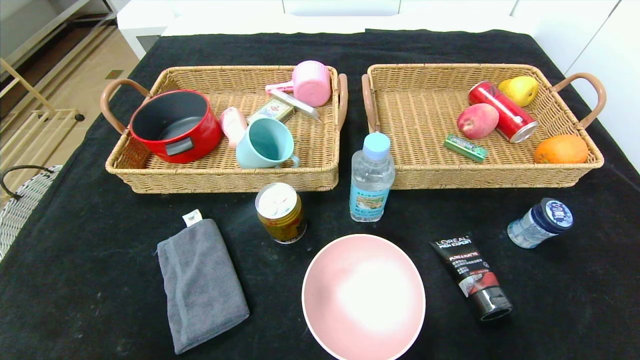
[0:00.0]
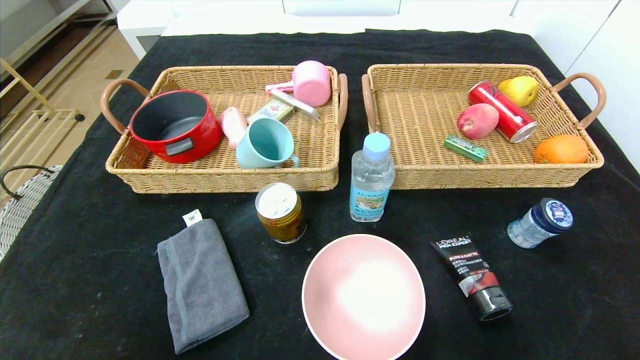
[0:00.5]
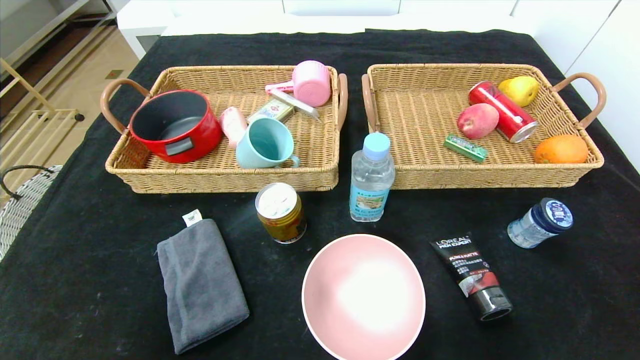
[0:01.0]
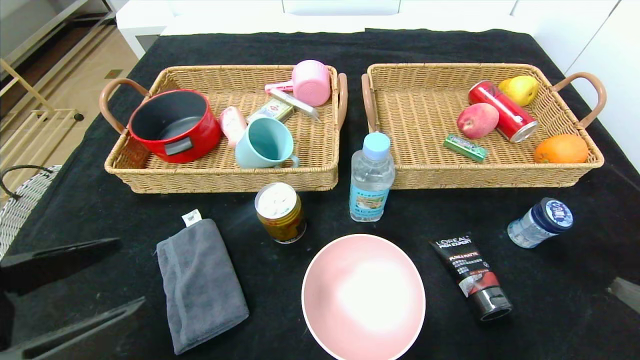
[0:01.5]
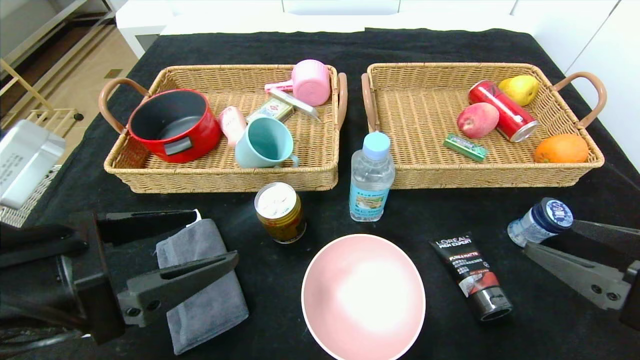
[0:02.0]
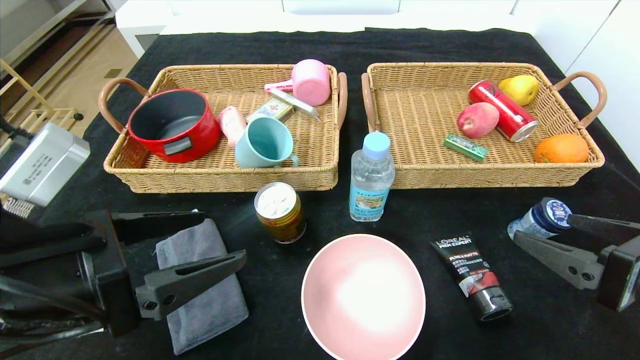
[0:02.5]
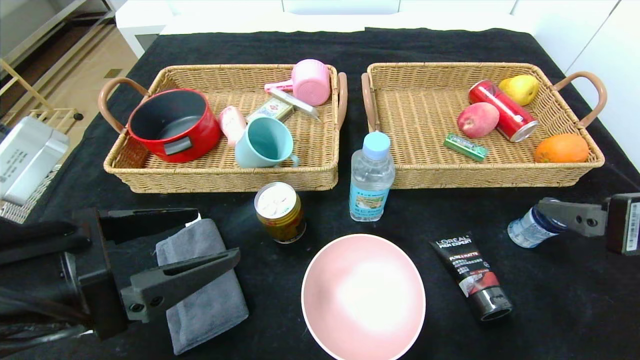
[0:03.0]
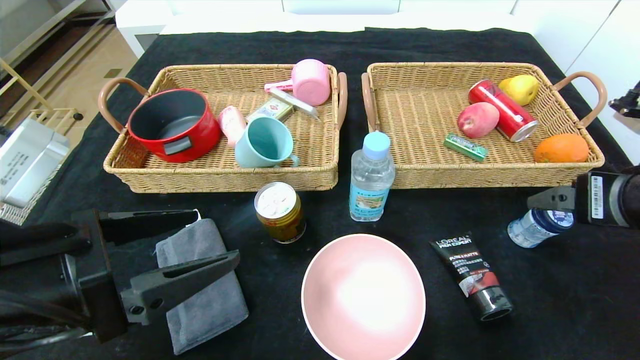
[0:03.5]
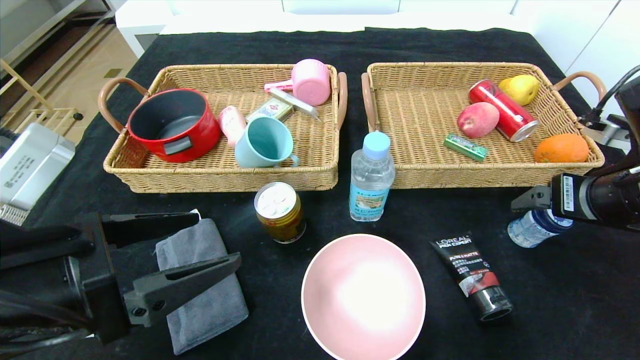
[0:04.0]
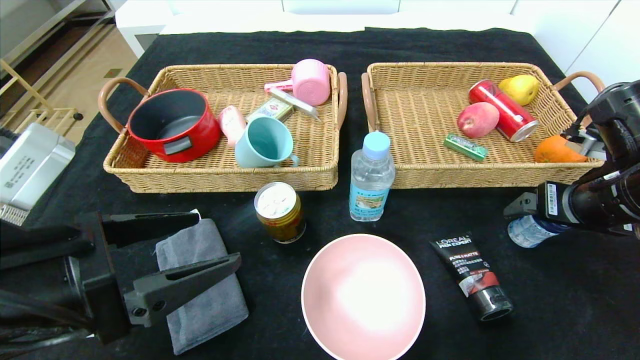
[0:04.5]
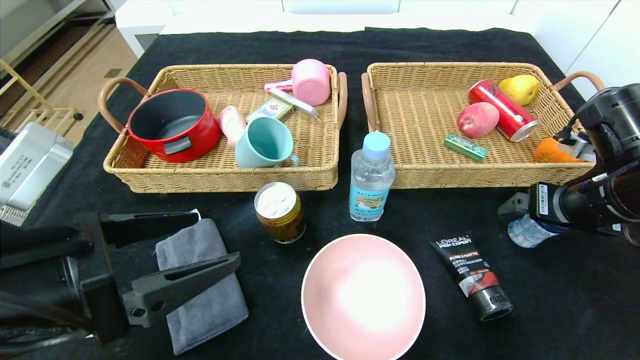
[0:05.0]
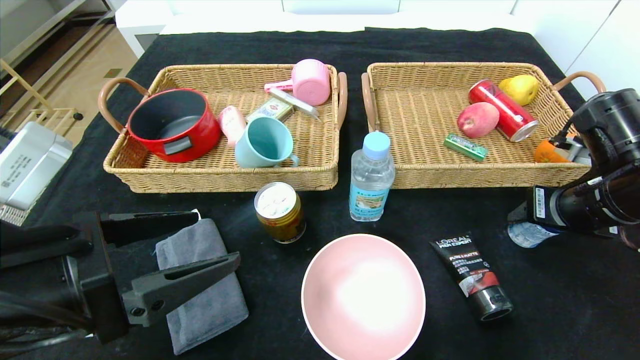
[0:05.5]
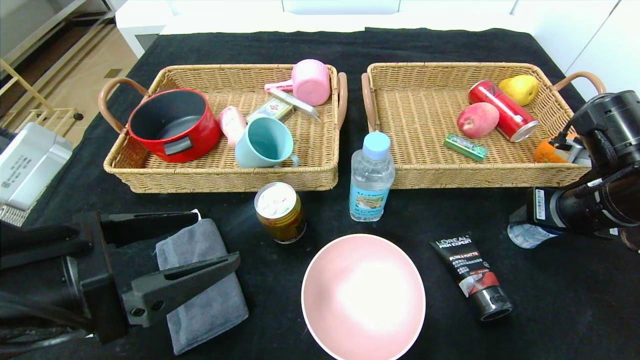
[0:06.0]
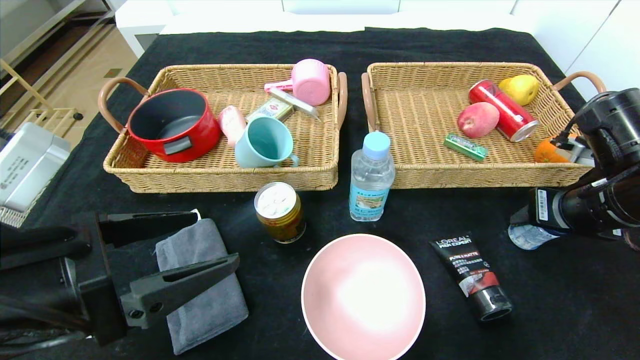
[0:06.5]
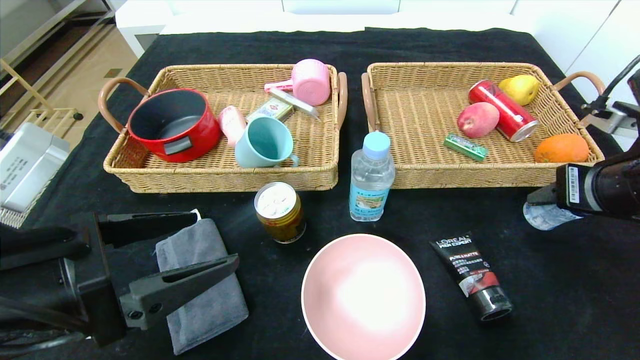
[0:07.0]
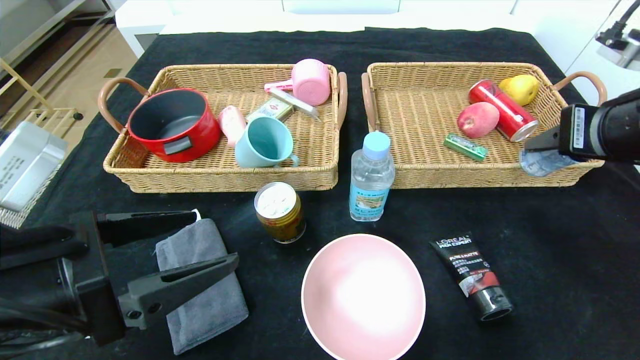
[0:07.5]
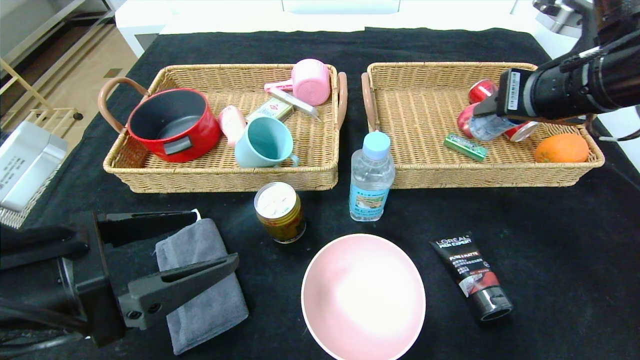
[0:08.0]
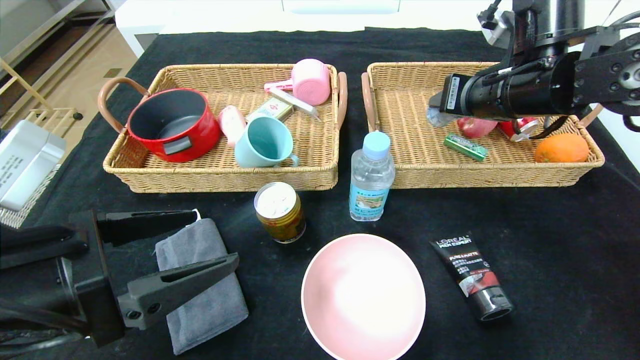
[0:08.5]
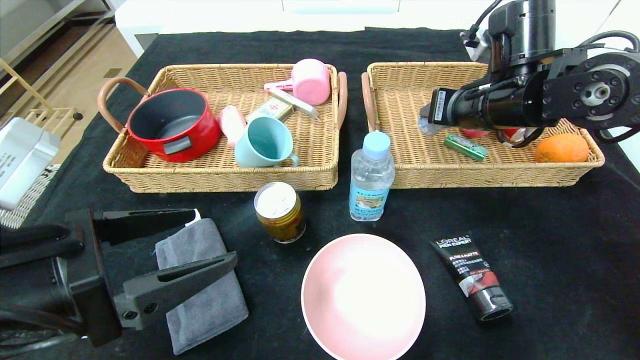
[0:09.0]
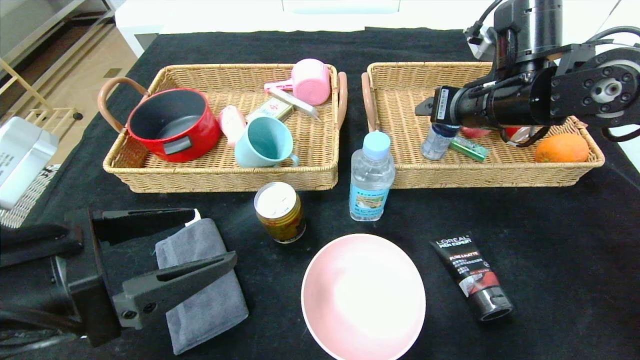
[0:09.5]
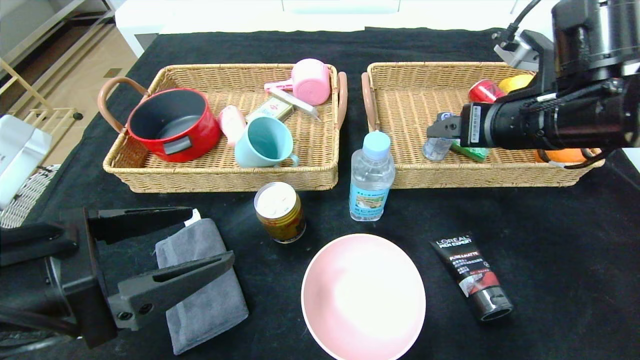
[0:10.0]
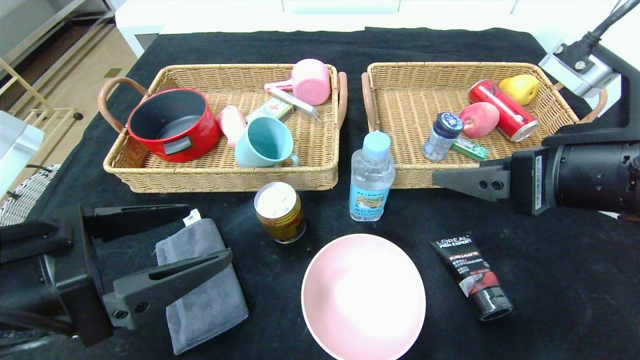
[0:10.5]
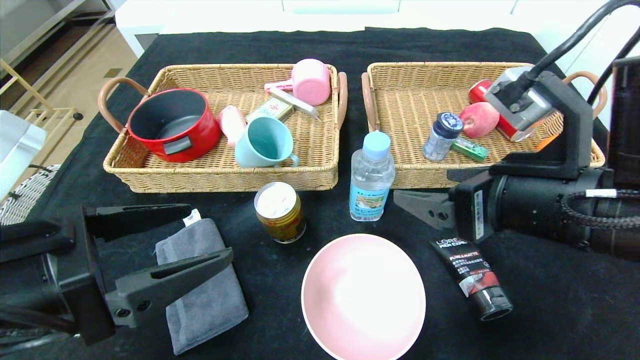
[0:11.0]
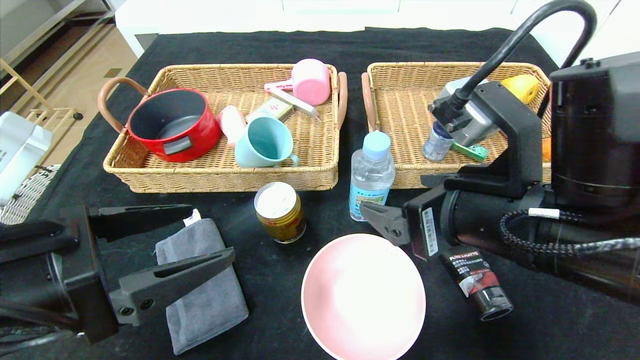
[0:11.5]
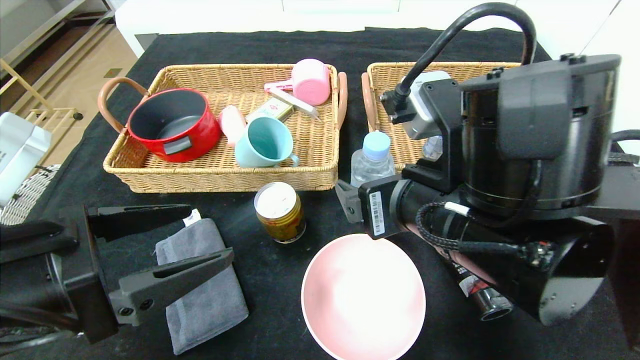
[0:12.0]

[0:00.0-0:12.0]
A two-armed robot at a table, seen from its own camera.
Step, 0:00.0 to 0:09.0: Grasp the round chewing gum and put it in the right basket.
0:00.0 to 0:02.0: The right gripper heads upward, forward and to the left, covering about 20 cm, while the left gripper heads upward, forward and to the right, covering about 25 cm.
0:02.0 to 0:04.0: The right gripper shifts approximately 10 cm forward.
0:04.0 to 0:06.0: The right gripper closes.
0:06.0 to 0:08.0: The right gripper heads upward and to the left, covering roughly 15 cm.
0:08.0 to 0:10.0: The right gripper moves some 10 cm forward and comes back, and opens its fingers.
0:10.0 to 0:12.0: The right gripper travels to the left and backward by approximately 15 cm.

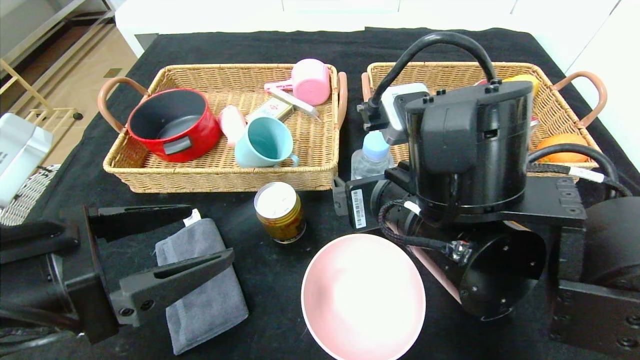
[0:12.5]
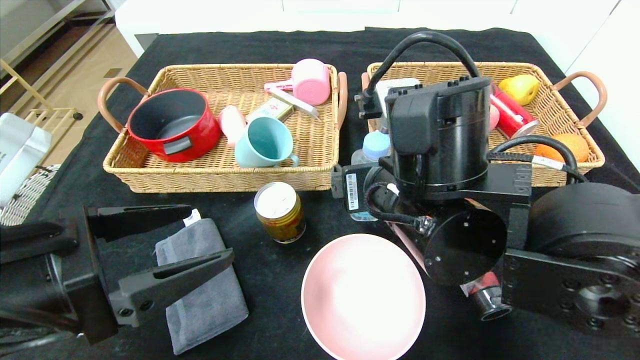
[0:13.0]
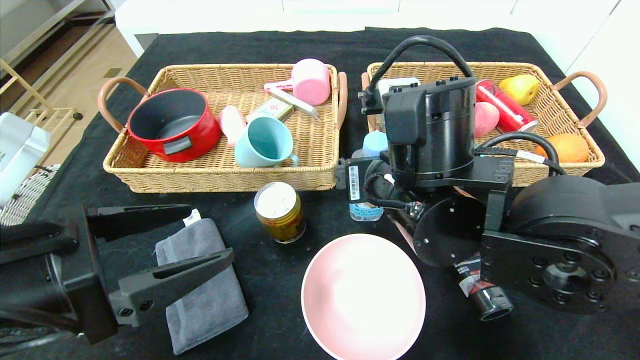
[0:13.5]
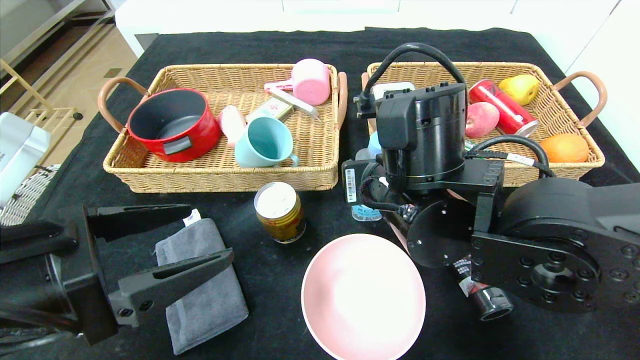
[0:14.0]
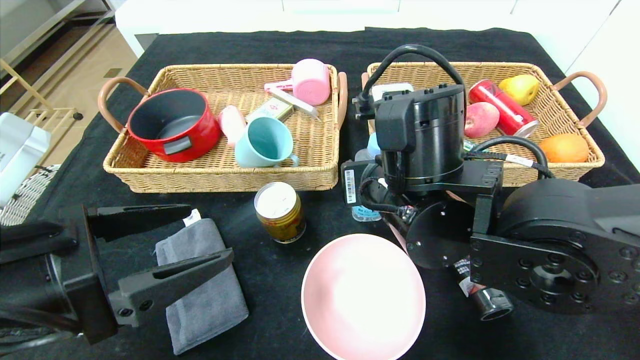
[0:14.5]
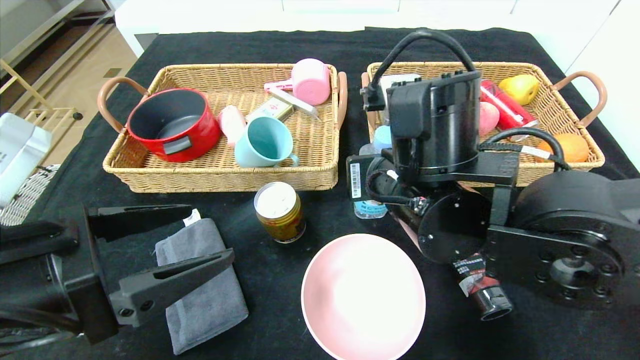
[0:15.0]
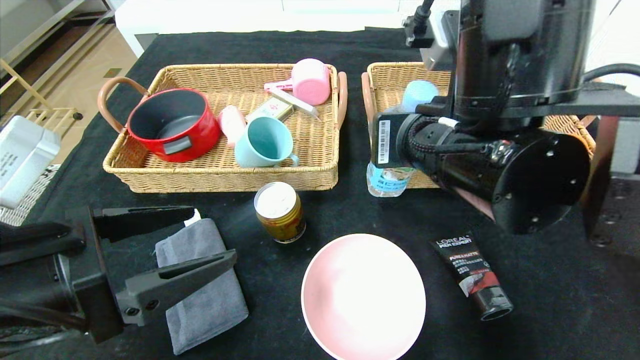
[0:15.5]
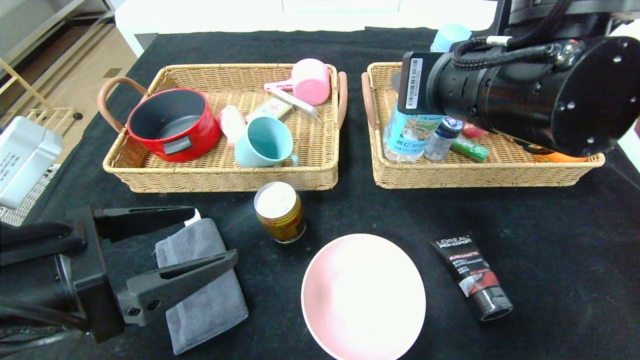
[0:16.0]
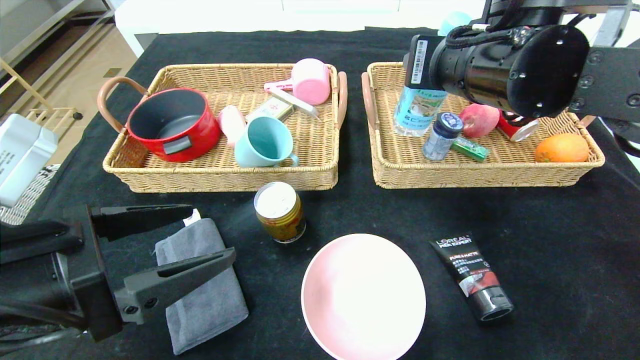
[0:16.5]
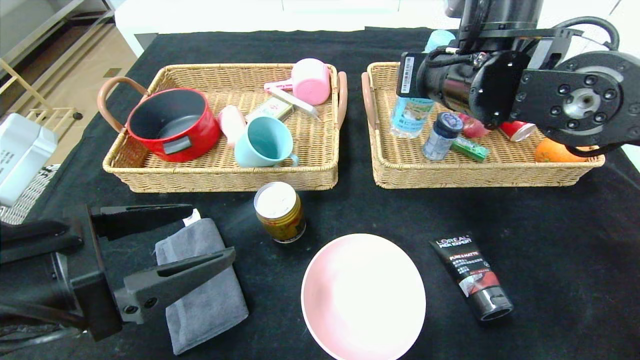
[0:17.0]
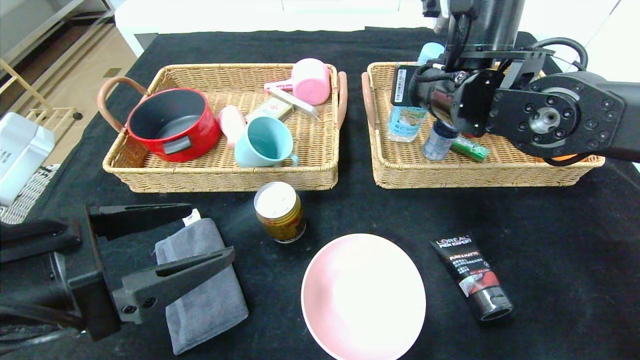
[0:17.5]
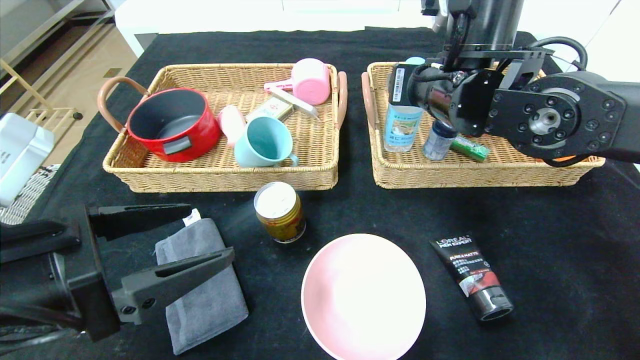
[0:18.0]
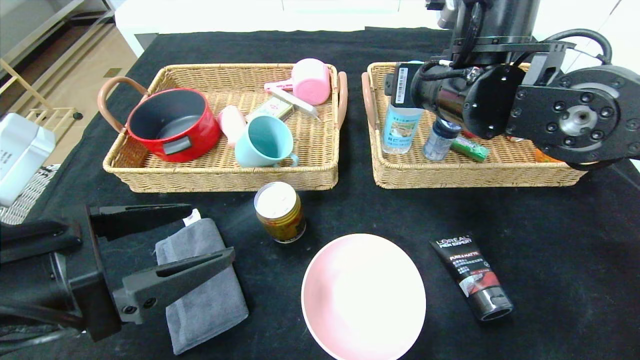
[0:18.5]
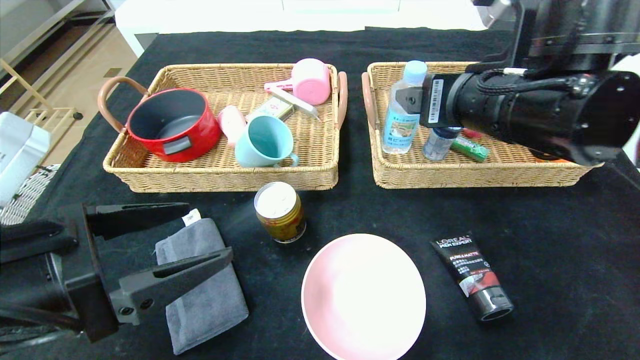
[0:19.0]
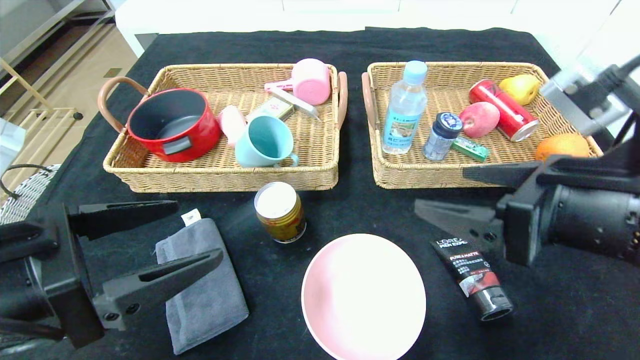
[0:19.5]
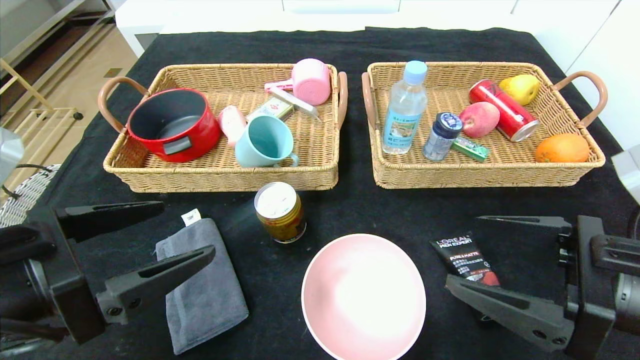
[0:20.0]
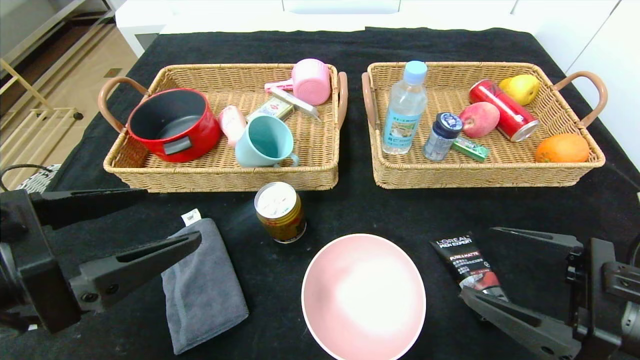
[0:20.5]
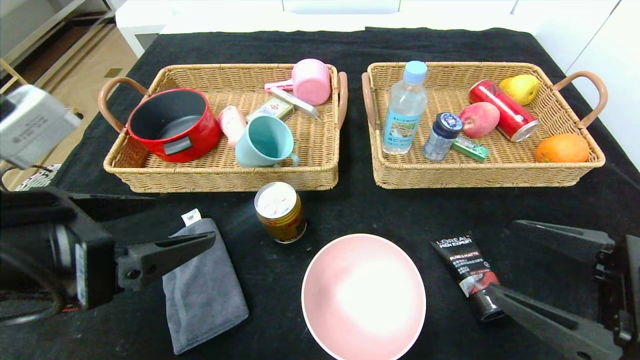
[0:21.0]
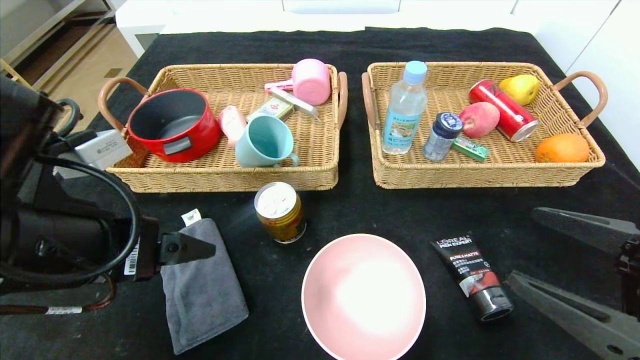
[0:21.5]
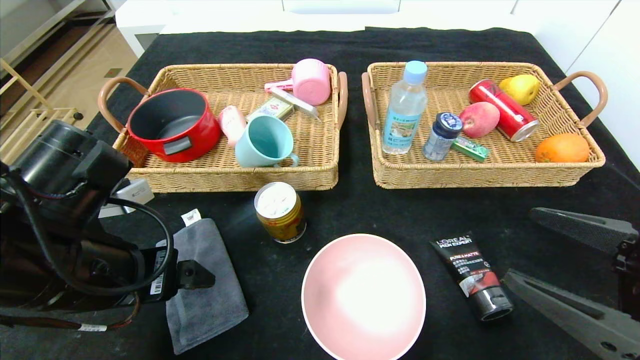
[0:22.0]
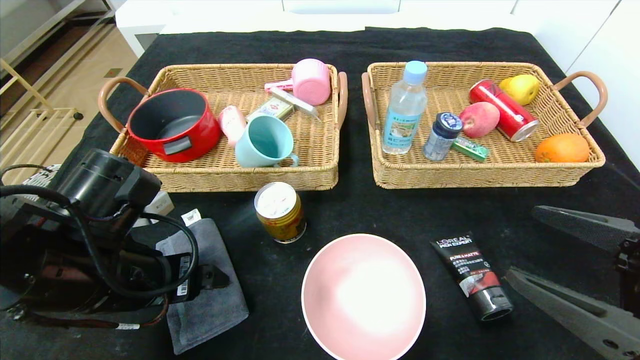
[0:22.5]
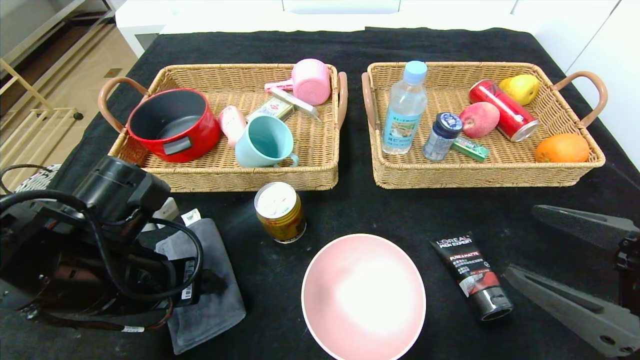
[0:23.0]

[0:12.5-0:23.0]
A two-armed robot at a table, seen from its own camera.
Step, 0:12.5 to 0:18.5: Grasp the soda water and put it in the right basket.
0:12.5 to 0:14.5: The right gripper closes its fingers.
0:14.5 to 0:16.5: The right gripper shifts approximately 15 cm upward and to the right.
0:16.5 to 0:19.0: The right gripper changes place by roughly 5 cm, and opens its fingers.
0:19.0 to 0:21.0: The right gripper goes some 20 cm backward, downward and to the right.
0:21.0 to 0:23.0: The left gripper goes approximately 10 cm downward and forward.
